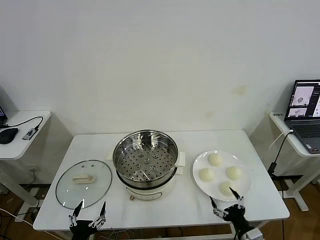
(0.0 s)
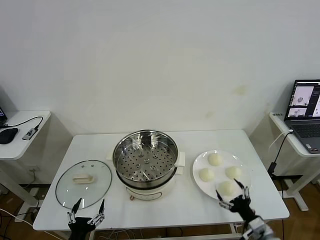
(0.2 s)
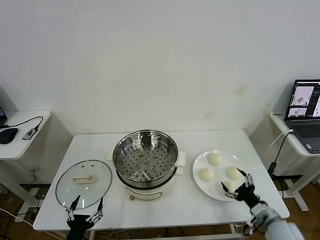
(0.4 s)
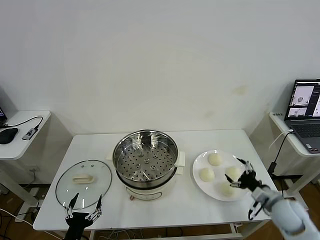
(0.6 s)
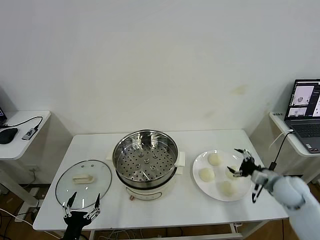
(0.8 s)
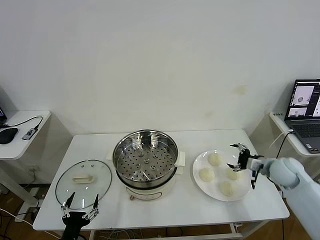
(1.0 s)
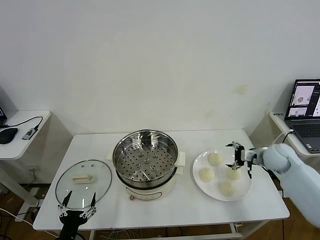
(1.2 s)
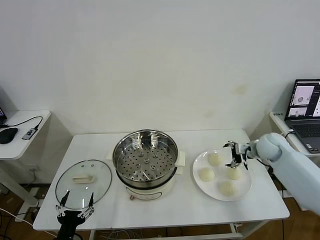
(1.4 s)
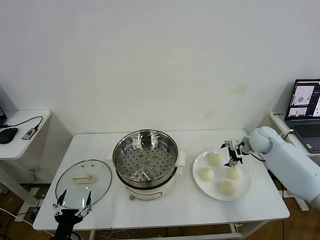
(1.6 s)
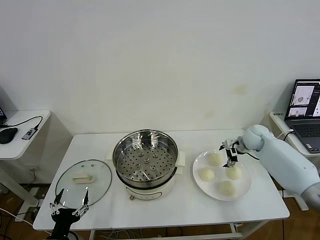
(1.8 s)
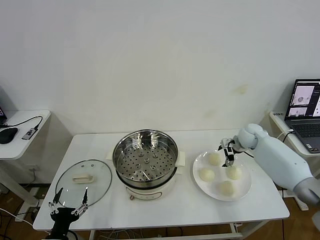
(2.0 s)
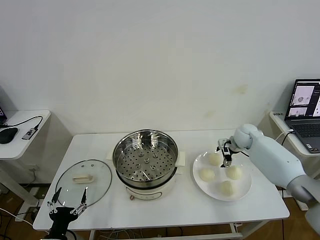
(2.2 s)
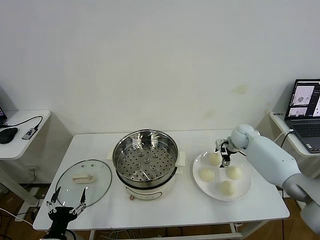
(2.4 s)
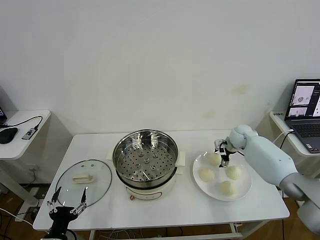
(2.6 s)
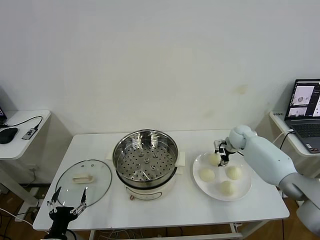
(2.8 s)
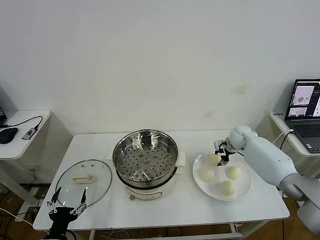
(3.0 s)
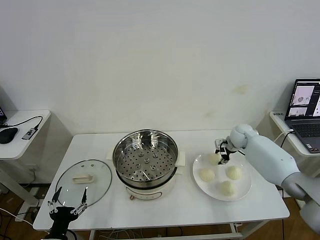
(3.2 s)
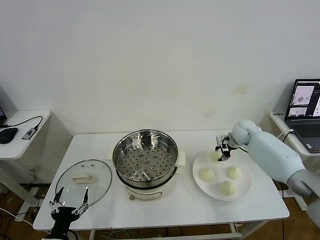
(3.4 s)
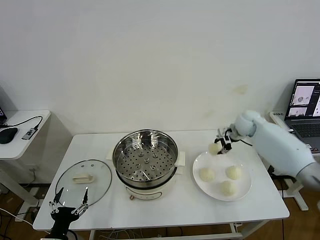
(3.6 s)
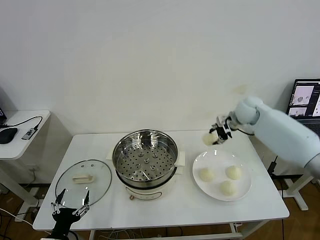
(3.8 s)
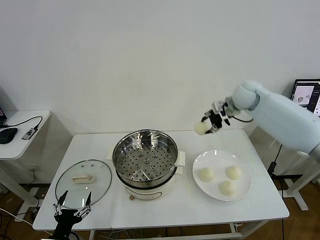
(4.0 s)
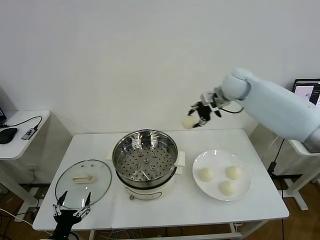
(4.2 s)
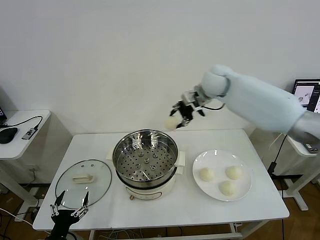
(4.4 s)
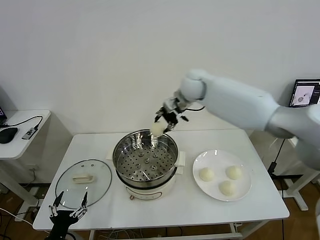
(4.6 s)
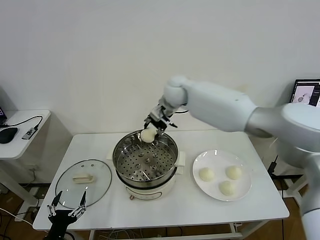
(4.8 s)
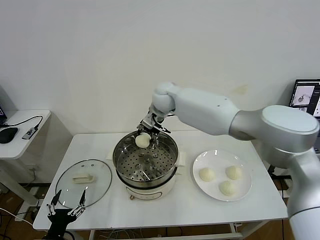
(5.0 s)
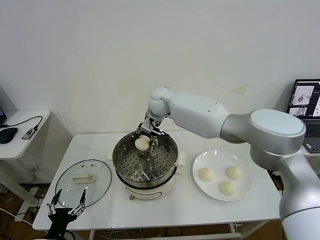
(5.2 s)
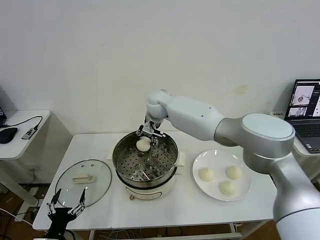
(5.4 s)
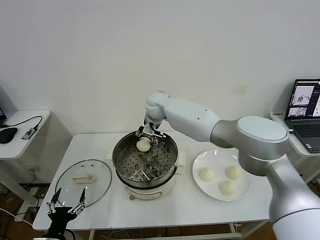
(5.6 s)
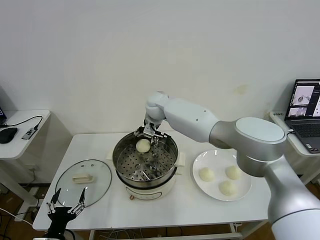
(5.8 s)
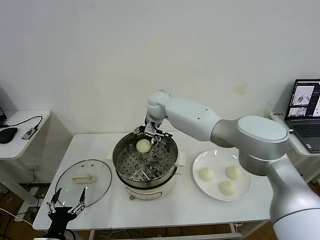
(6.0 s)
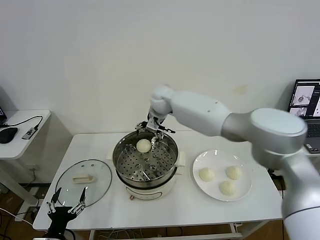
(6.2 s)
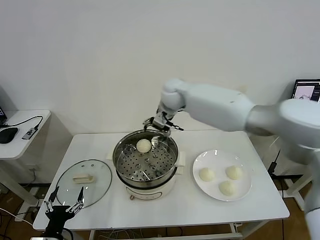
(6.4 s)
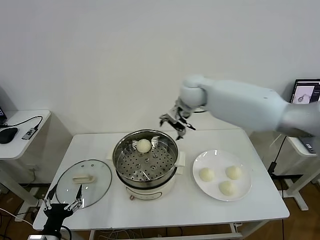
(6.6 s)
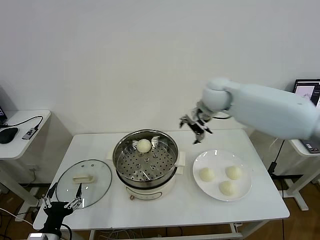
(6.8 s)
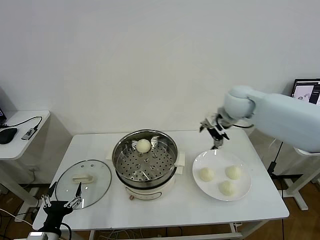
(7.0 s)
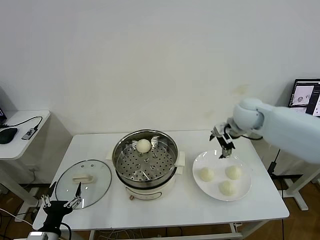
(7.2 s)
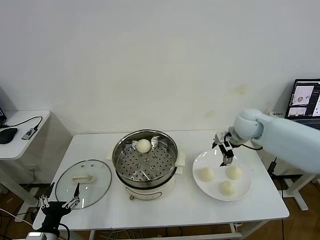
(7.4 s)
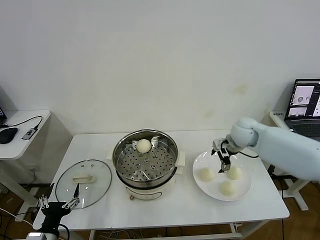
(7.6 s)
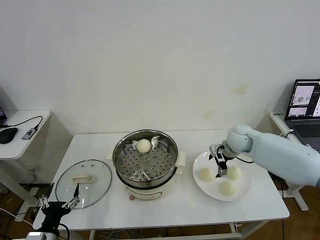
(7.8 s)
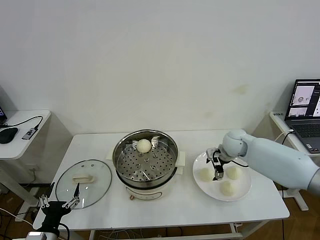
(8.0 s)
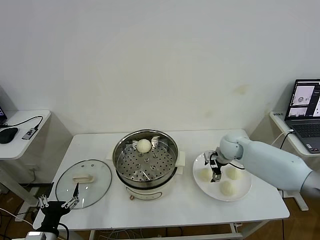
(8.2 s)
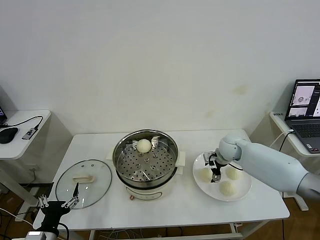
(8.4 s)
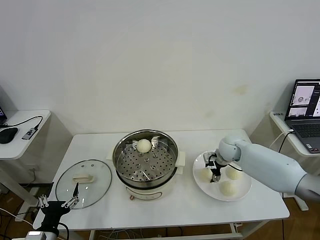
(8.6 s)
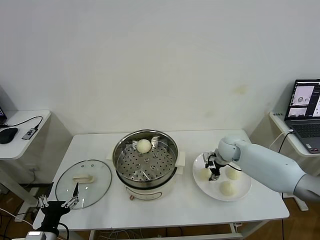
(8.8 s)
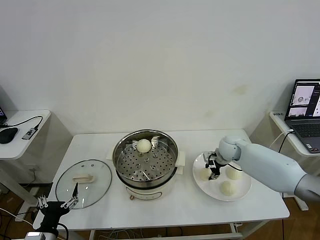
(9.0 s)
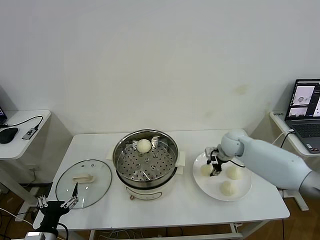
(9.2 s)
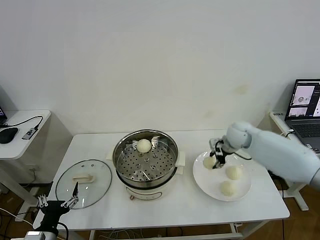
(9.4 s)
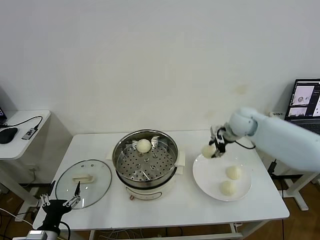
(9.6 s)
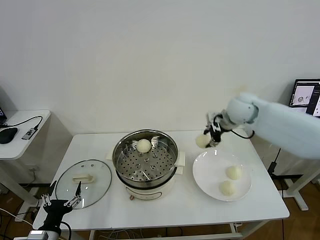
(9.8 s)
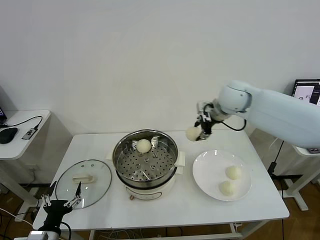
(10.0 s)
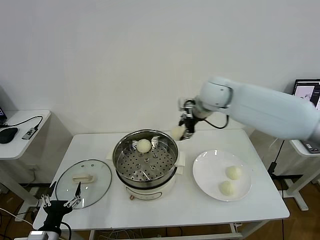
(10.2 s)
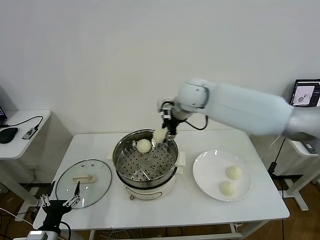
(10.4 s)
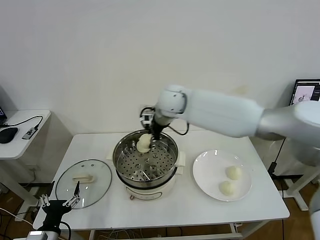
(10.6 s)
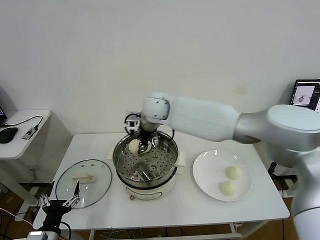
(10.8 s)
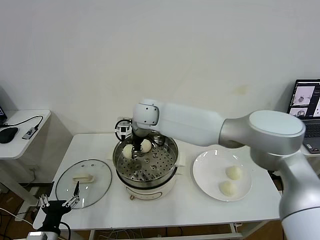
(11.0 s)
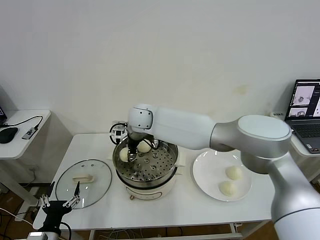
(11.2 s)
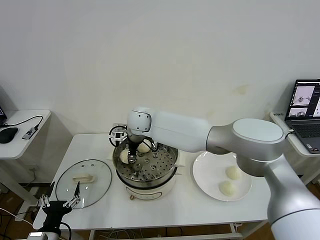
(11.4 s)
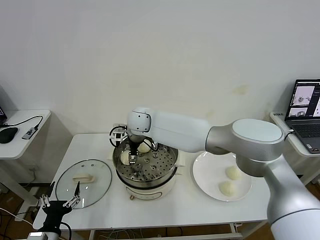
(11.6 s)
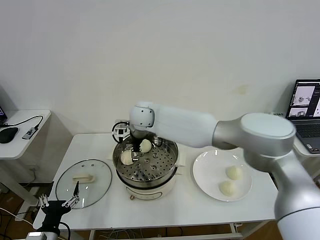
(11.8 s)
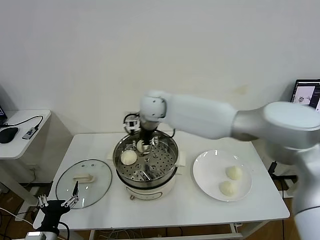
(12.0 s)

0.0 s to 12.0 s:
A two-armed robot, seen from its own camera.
Task of the whole recording: take steamed baozi put them in steamer then cover it.
Step, 0.0 to 3.2 s: Grasp the baozi in the plate with right gripper.
Step, 3.4 to 6.0 s: Place the baozi on the steamer with right gripper.
Step, 6.2 to 9.0 s: Grasp the baozi in the plate with right gripper.
Step, 9.2 to 11.6 s: Place the baozi on the steamer with right gripper.
1.6 to 3.0 s: The right gripper ends up about 5 cm from where it was, and closes its fingers.
3.0 to 4.4 s: The right gripper heads upward and to the left, covering approximately 30 cm.
4.4 to 6.0 s: The right gripper moves to the left and downward, approximately 15 cm, and opens.
6.0 to 7.6 s: The right gripper heads to the right, covering some 30 cm.
7.6 to 9.0 s: The right gripper goes about 5 cm downward, and closes.
9.0 to 10.4 s: The right gripper travels upward and to the left by some 30 cm.
10.4 to 12.0 s: The right gripper goes about 5 cm to the left, and opens up.

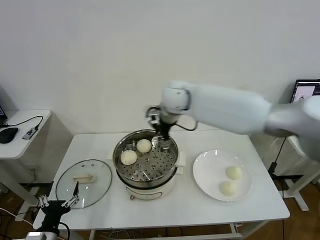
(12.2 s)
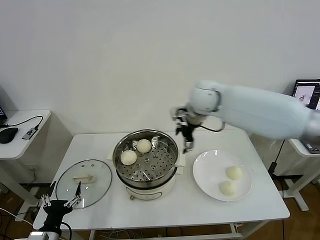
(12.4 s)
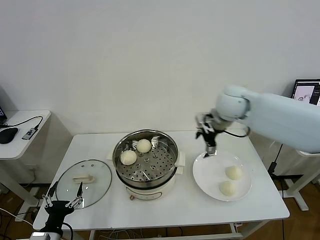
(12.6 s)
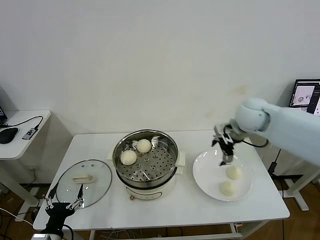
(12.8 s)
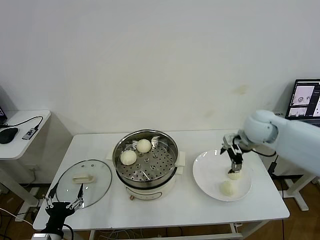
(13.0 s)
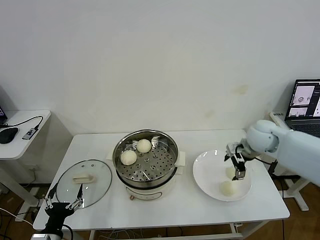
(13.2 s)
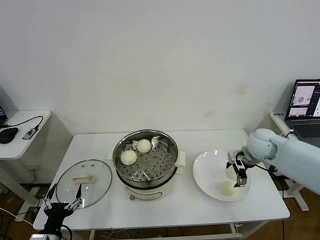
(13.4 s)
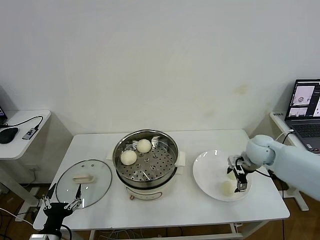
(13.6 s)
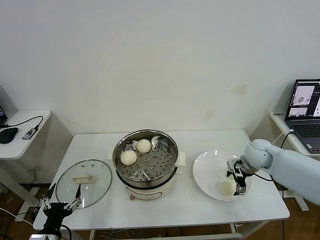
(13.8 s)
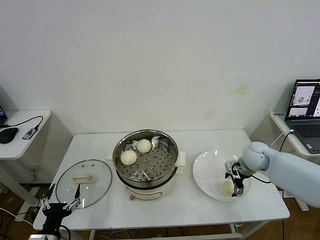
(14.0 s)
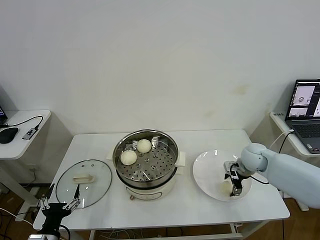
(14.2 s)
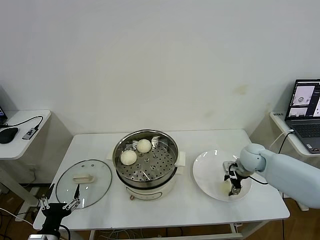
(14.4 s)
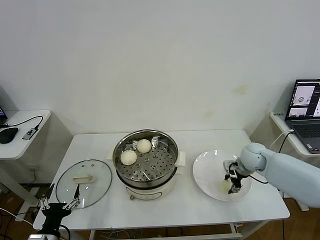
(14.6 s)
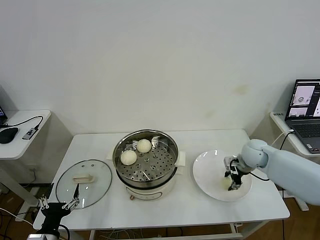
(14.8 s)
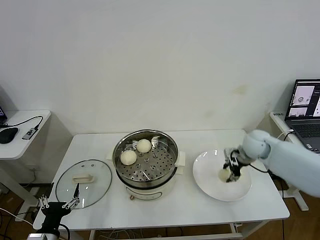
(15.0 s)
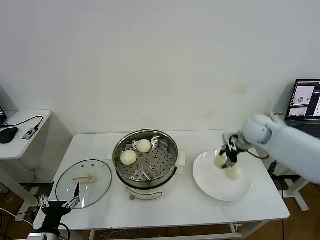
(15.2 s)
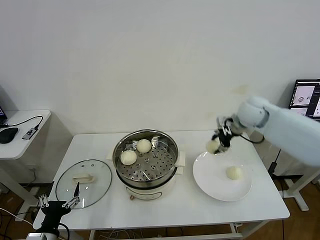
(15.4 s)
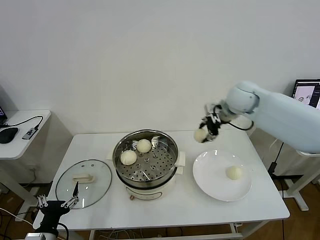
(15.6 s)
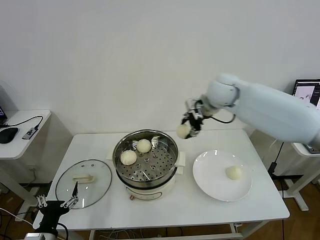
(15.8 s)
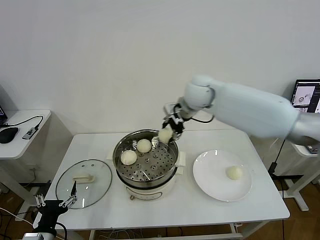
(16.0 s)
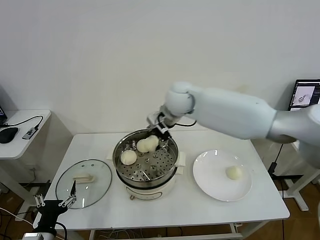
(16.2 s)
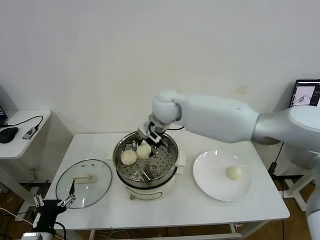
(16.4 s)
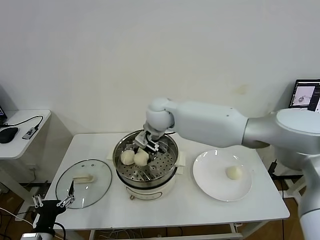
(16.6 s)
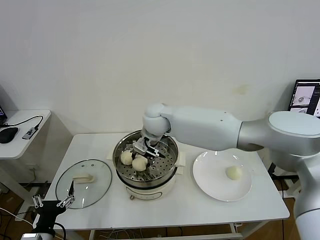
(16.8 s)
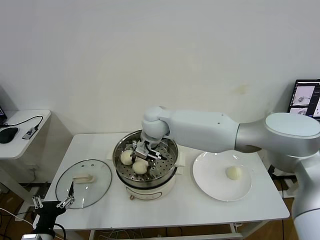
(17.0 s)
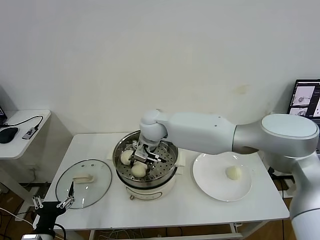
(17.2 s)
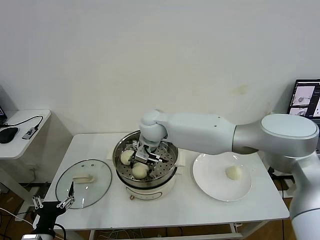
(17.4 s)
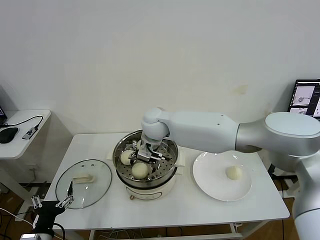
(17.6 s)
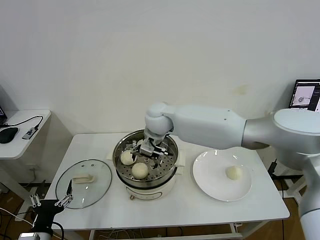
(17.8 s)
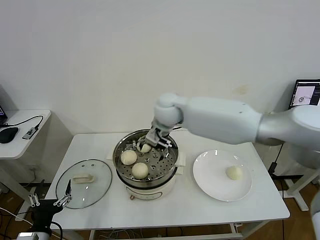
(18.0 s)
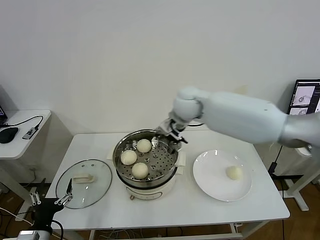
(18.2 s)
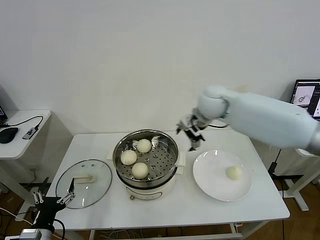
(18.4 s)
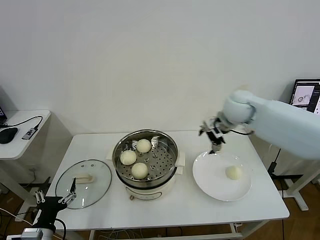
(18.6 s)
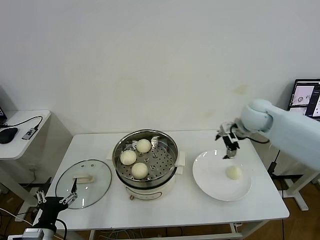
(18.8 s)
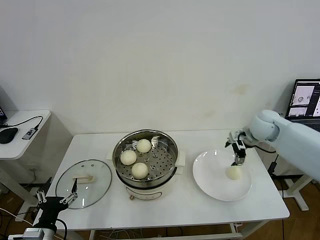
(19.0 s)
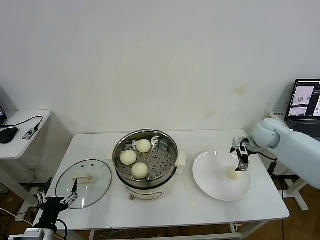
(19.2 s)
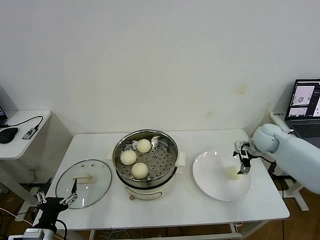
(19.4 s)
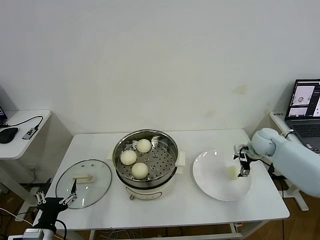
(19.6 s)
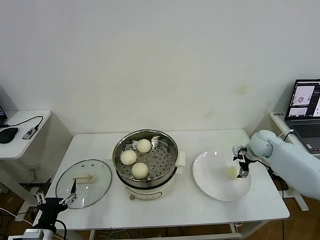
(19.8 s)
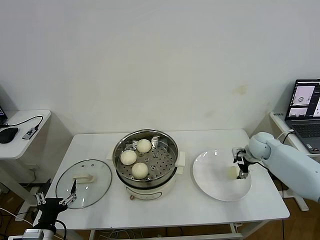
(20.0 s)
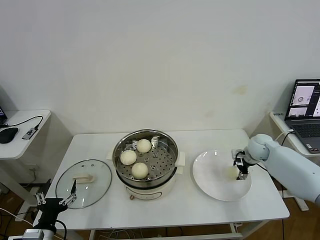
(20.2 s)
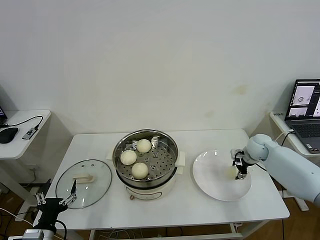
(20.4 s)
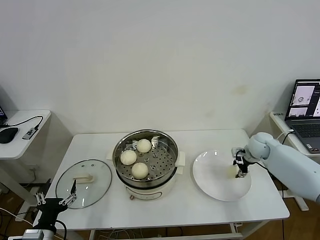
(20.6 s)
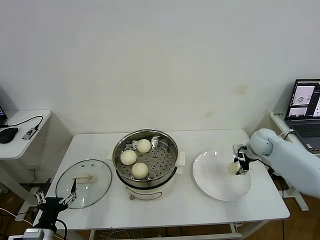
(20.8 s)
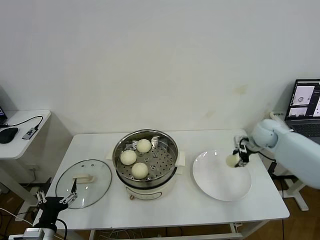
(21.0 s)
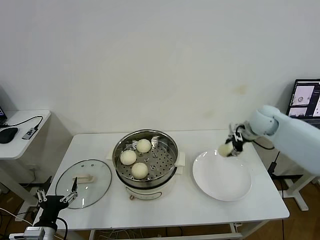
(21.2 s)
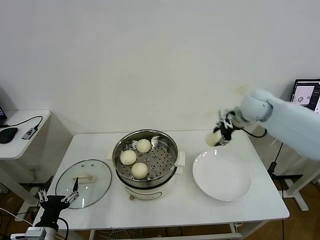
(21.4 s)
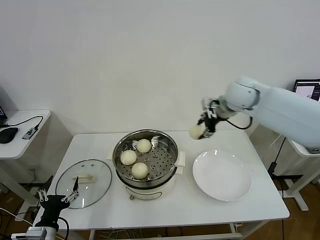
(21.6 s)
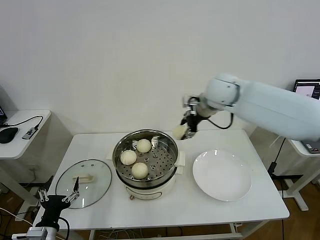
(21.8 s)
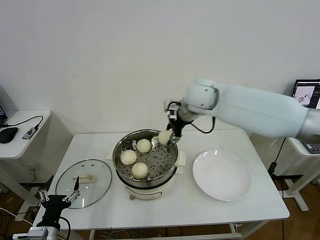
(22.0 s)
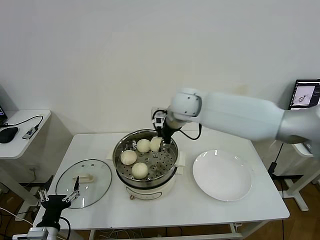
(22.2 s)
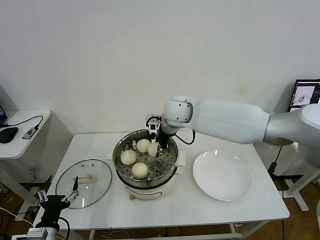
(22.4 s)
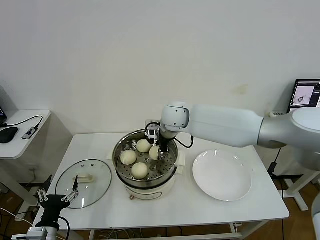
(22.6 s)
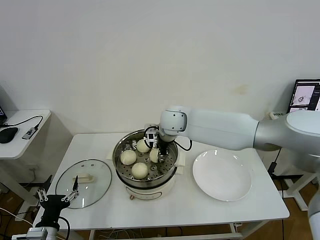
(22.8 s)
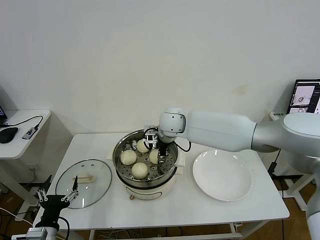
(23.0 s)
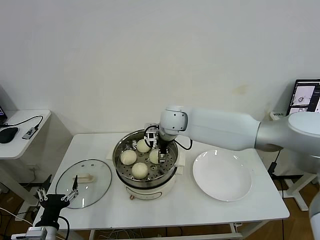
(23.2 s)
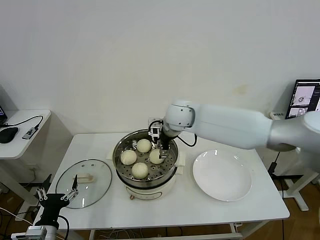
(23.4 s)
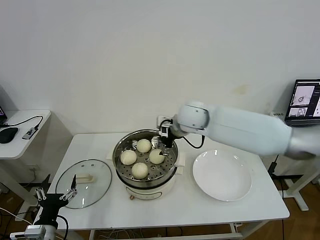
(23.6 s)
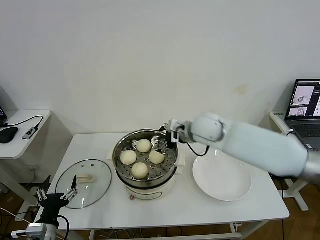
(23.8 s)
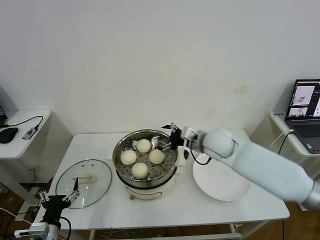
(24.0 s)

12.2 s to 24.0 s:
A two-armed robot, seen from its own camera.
Task of the whole recording: take steamed baozi put them in steamer then cover it.
Step, 12.2 to 14.8 s: Grasp the baozi in the plate with right gripper.
Step, 15.0 to 17.8 s: Place the baozi on the steamer with right gripper.
Step, 18.0 to 20.6 s: Grasp the baozi in the plate with right gripper.
Step, 21.0 to 23.4 s: Place the baozi on the steamer with right gripper.
12.2 to 13.6 s: The right gripper goes roughly 30 cm to the right and downward.
13.6 to 15.2 s: The right gripper travels upward and forward by roughly 10 cm, and closes.
15.2 to 16.6 s: The right gripper travels to the left by approximately 35 cm.
16.6 to 18.2 s: The right gripper heads to the right, covering roughly 10 cm, and opens.
18.2 to 19.6 s: The right gripper moves to the right and downward, roughly 35 cm.
19.6 to 21.0 s: The right gripper closes.
21.0 to 22.6 s: The right gripper goes roughly 35 cm to the left.
22.6 to 24.0 s: The right gripper travels to the right and backward by roughly 15 cm, and opens.
